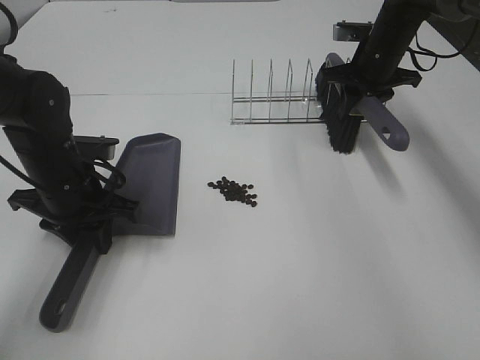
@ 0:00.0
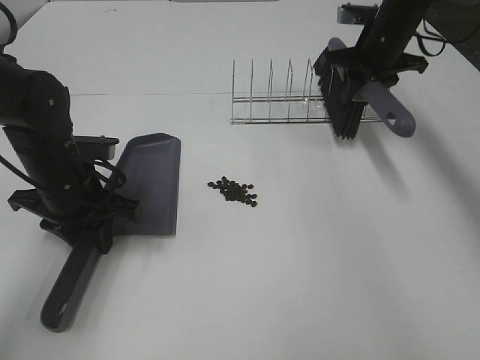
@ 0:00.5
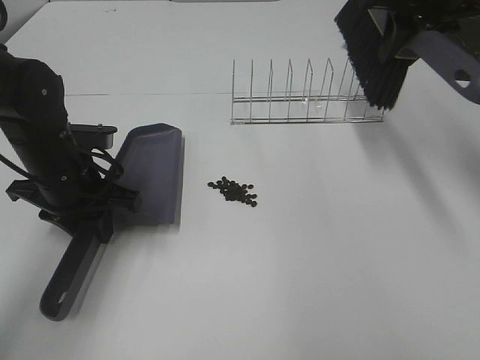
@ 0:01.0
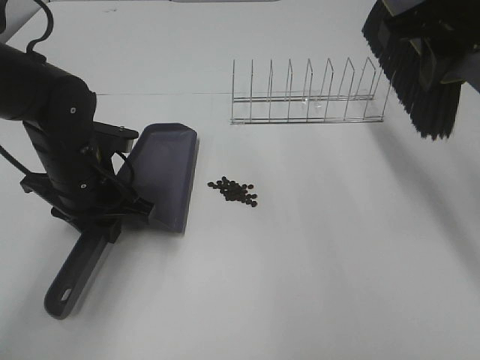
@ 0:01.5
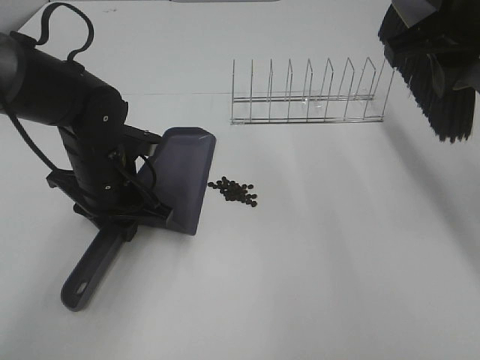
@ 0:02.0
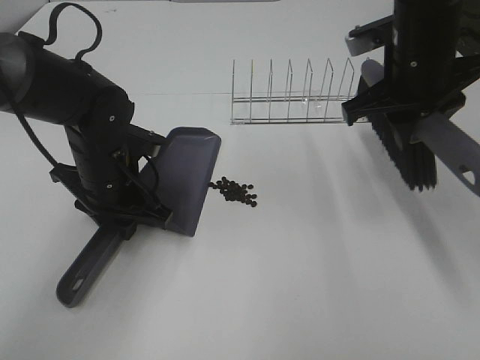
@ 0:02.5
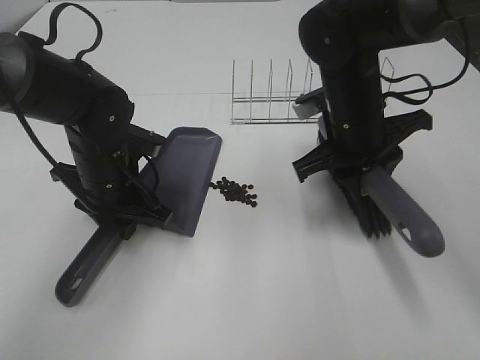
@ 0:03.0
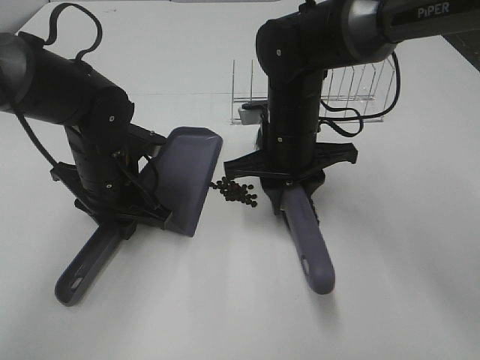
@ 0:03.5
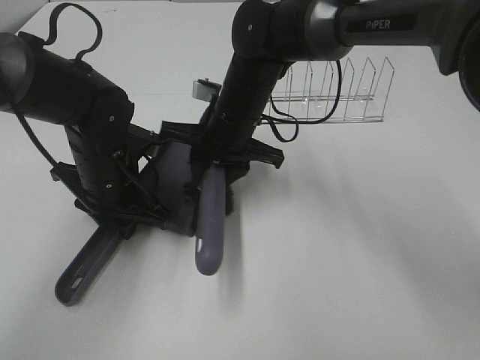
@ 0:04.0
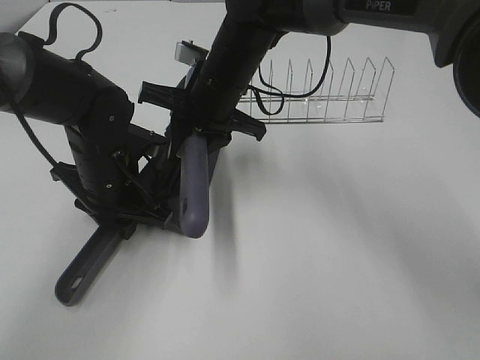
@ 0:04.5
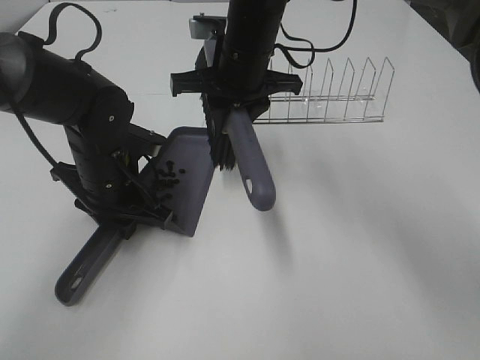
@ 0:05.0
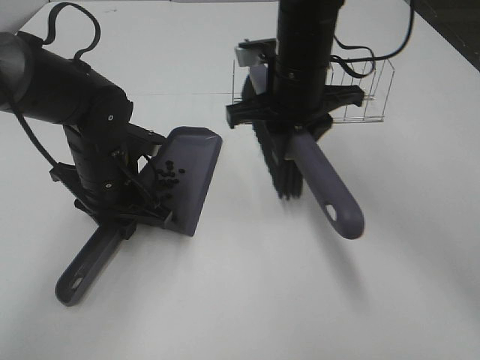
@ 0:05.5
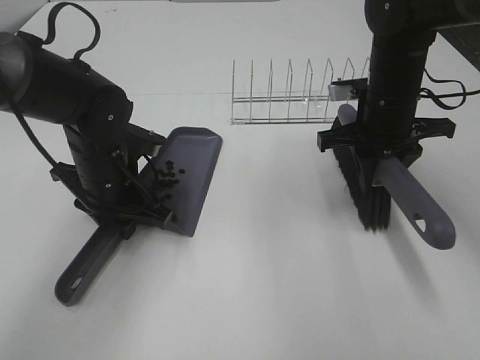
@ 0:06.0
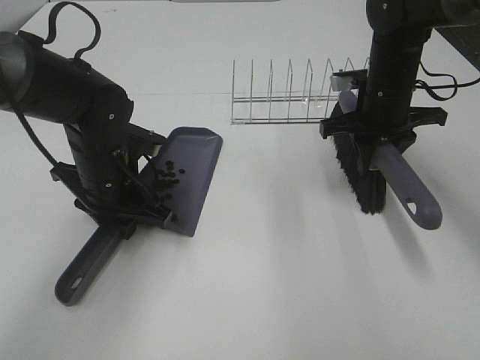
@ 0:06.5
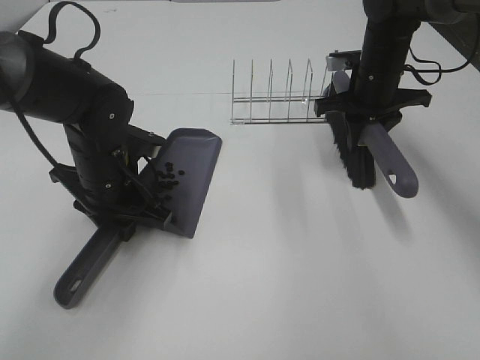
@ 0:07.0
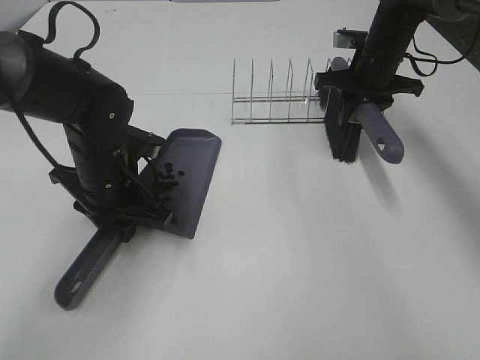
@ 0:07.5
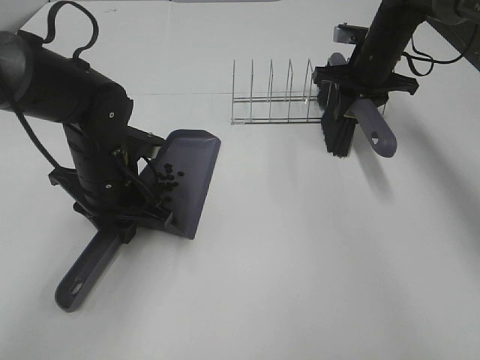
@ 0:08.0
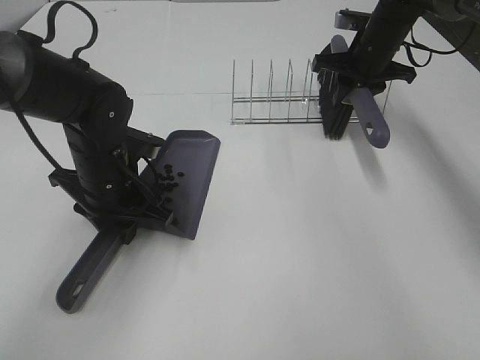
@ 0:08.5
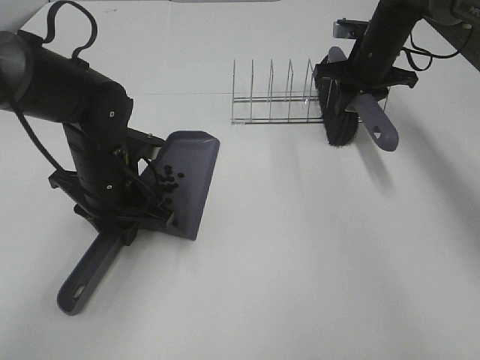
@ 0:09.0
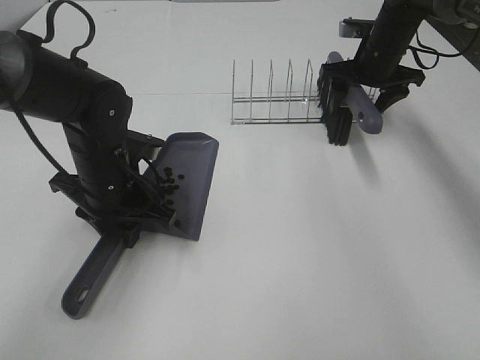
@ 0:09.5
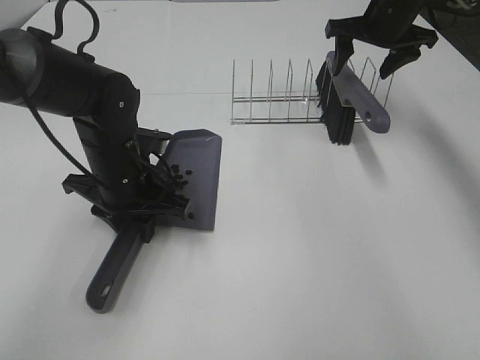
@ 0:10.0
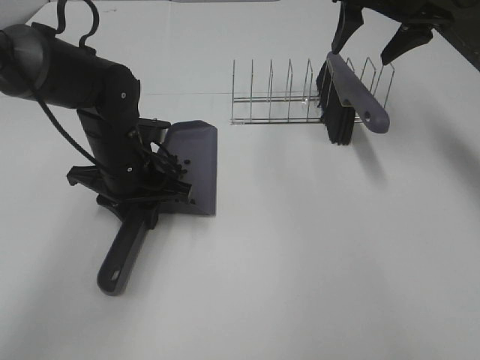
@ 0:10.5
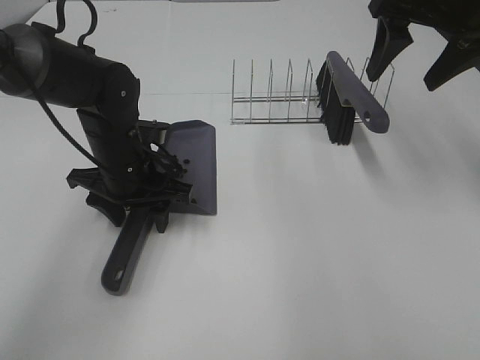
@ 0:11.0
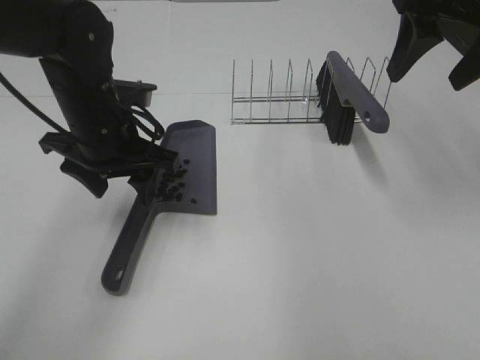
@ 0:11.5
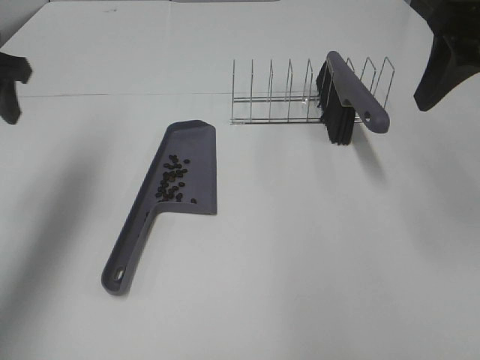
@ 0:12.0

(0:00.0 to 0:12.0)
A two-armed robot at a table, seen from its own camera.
Task of the whole recording: Sweep Coffee Bean.
Step, 0:00.0 - 0:02.5: Left hand: move the dustpan to the left side of the coffee beans.
Step, 0:00.5 - 0:04.5: Right hand:sweep the coffee beans into the dustpan.
Step, 0:05.0 - 0:09.5: Right hand:place the broom on the rack.
Step, 0:10.0 - 0:10.5: Left hand:place the dustpan on the table.
0:00.0 - 0:02.0: The right gripper goes about 25 cm backward and upward.
0:02.0 - 0:04.0: The right gripper is displaced to the left and downward by about 25 cm.
0:04.0 - 0:06.0: The right gripper travels to the right by about 20 cm.
0:06.0 - 0:08.0: The right gripper travels forward by some 15 cm.
0:08.0 - 0:10.0: The right gripper goes some 5 cm upward, and opens up.
0:10.0 - 0:12.0: The right gripper moves backward and upward, approximately 25 cm; the left gripper moves to the left and upward, about 25 cm, and opens up.

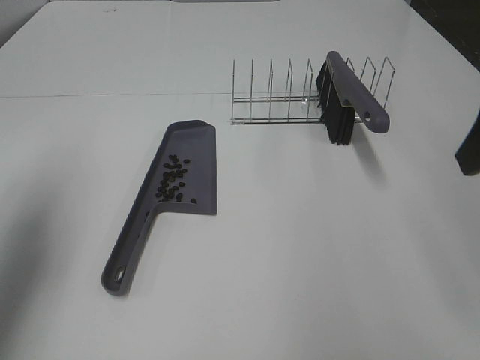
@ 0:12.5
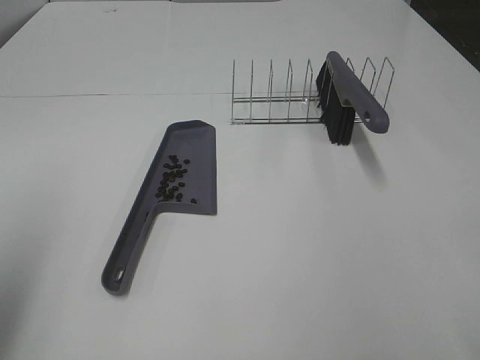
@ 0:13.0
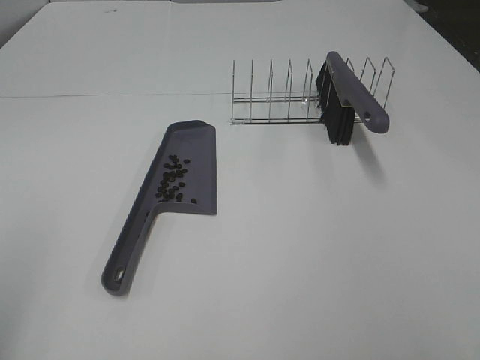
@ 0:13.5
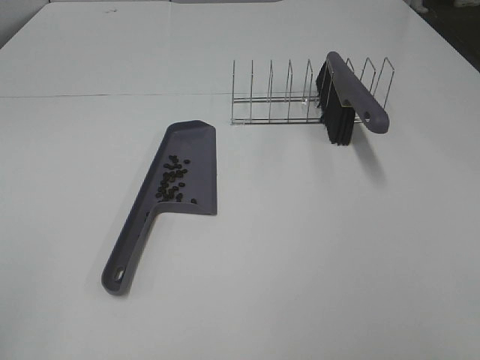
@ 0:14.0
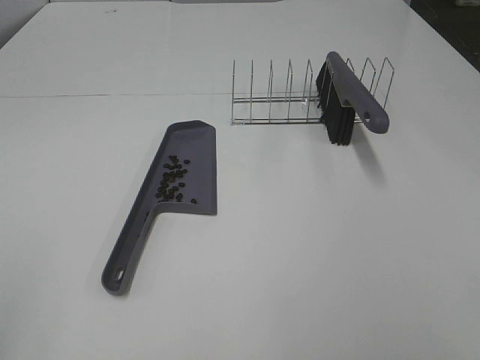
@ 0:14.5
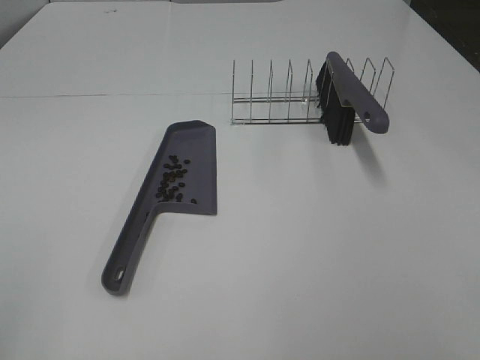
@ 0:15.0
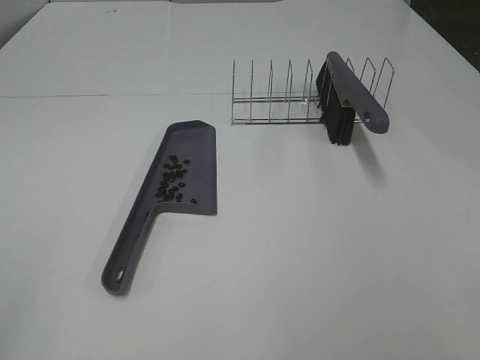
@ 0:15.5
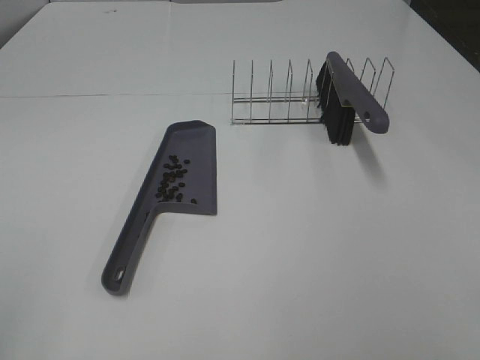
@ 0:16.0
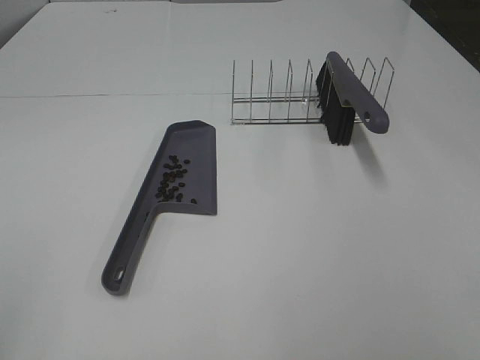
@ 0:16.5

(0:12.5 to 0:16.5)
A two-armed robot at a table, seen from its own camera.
Task of the whole recording: Sweep Coffee Bean.
0:12.5 - 0:14.5: Both grippers travel together backward, approximately 25 cm.
0:14.5 - 0:16.5: Both grippers stay put.
